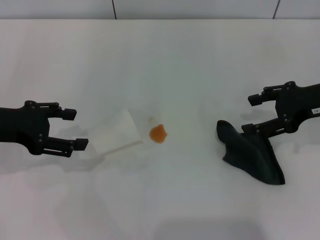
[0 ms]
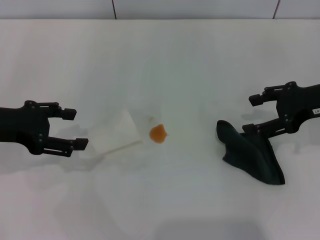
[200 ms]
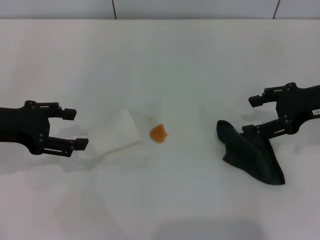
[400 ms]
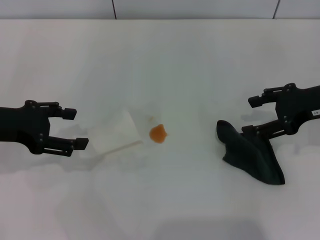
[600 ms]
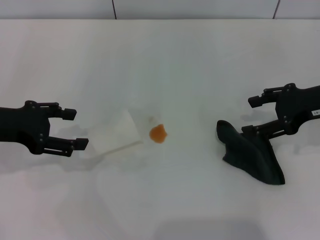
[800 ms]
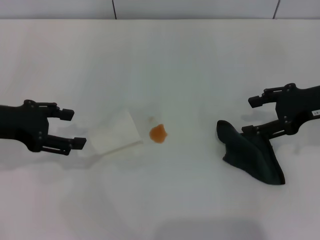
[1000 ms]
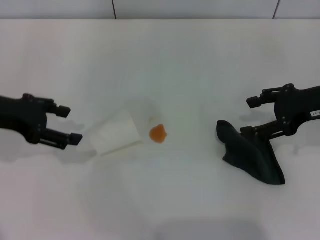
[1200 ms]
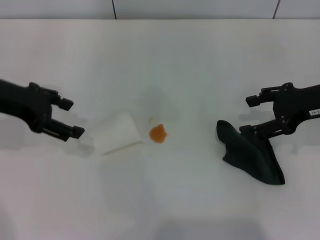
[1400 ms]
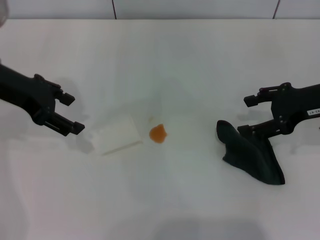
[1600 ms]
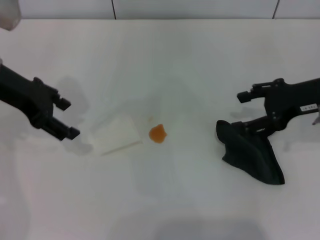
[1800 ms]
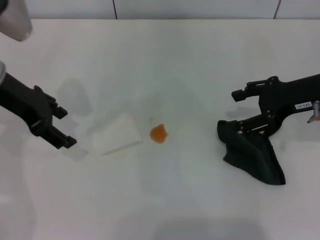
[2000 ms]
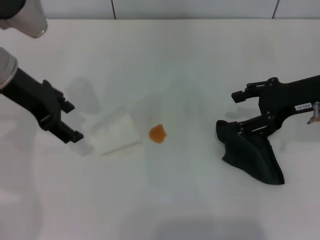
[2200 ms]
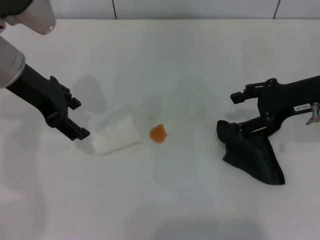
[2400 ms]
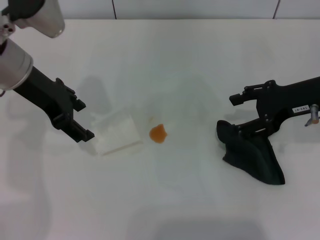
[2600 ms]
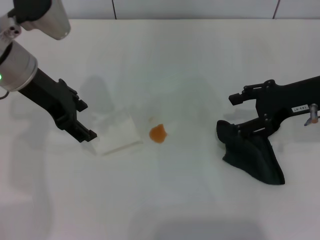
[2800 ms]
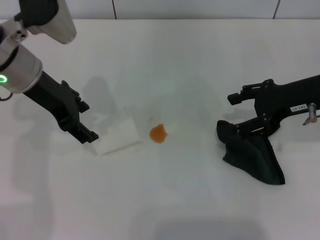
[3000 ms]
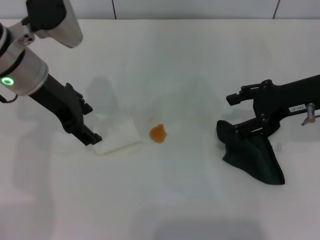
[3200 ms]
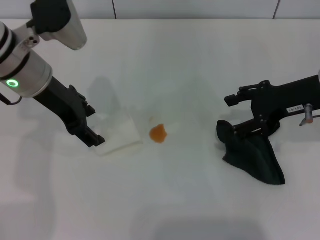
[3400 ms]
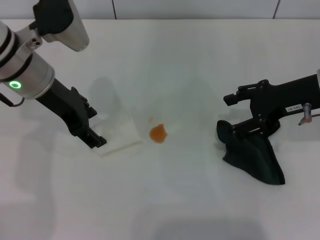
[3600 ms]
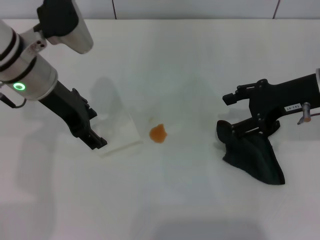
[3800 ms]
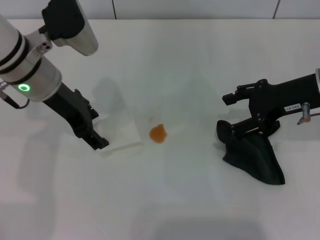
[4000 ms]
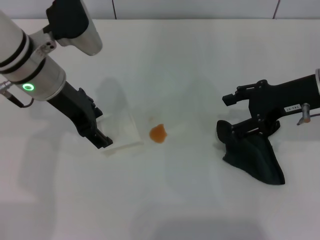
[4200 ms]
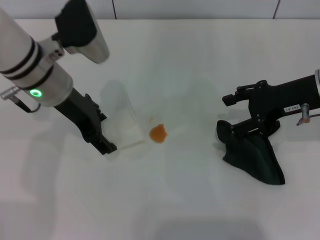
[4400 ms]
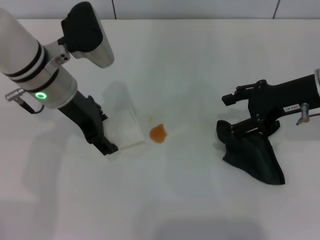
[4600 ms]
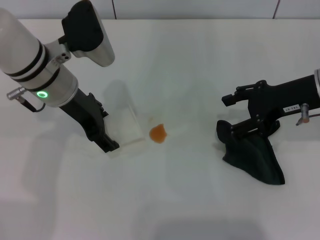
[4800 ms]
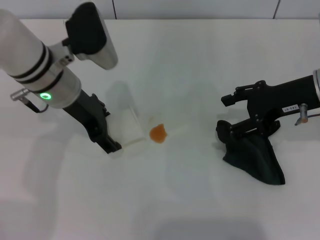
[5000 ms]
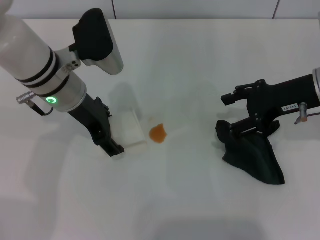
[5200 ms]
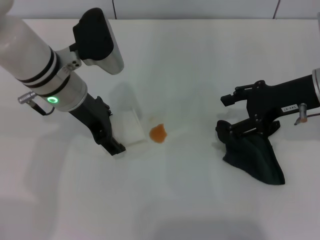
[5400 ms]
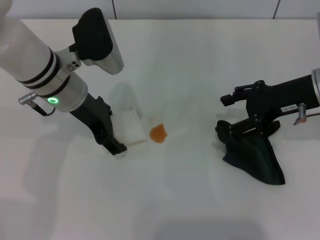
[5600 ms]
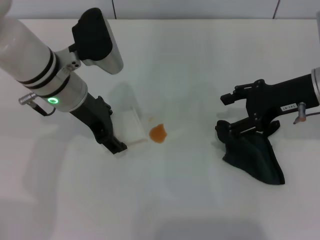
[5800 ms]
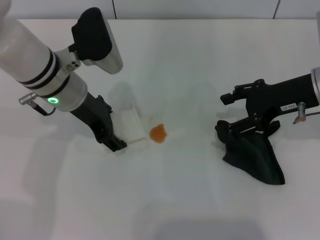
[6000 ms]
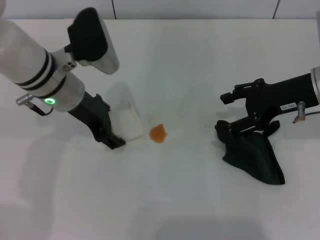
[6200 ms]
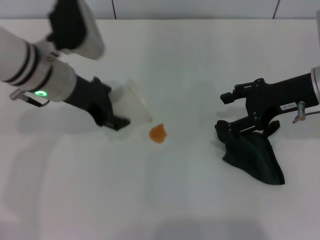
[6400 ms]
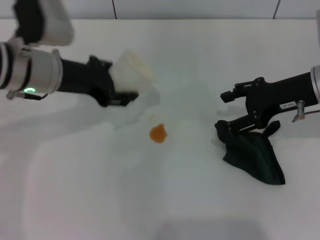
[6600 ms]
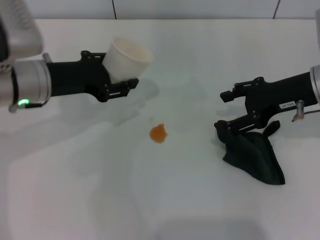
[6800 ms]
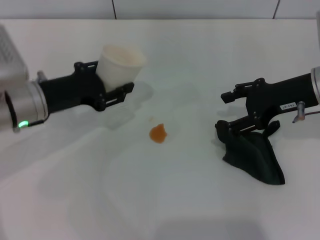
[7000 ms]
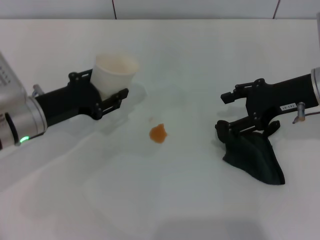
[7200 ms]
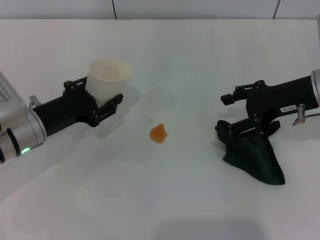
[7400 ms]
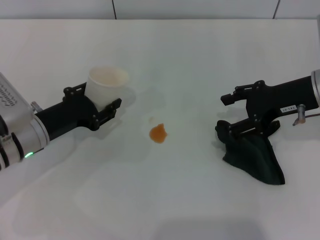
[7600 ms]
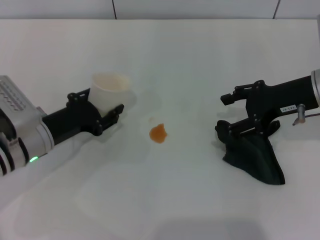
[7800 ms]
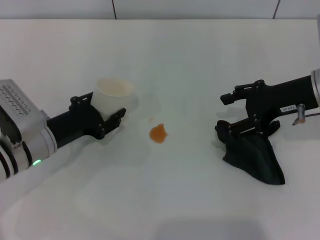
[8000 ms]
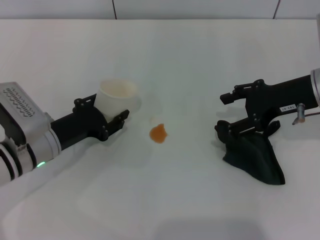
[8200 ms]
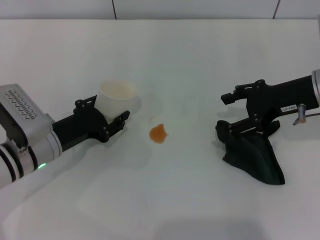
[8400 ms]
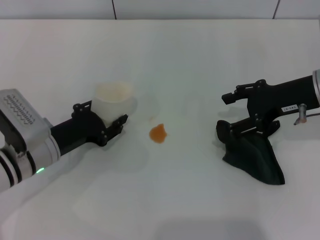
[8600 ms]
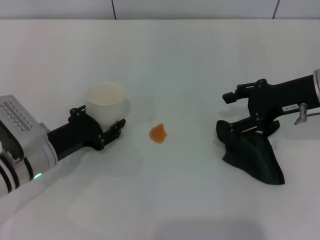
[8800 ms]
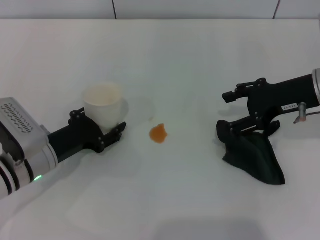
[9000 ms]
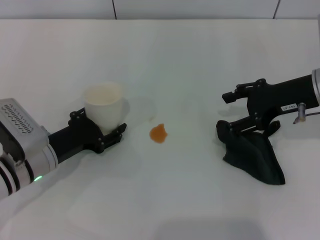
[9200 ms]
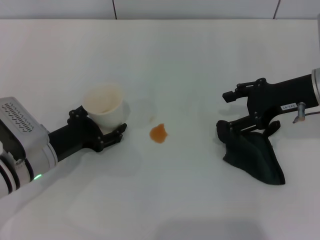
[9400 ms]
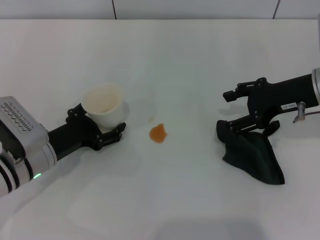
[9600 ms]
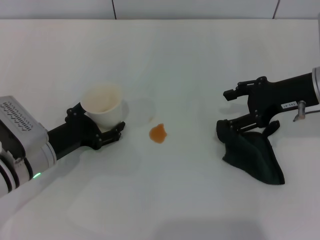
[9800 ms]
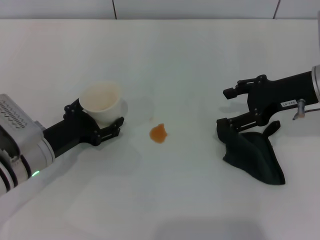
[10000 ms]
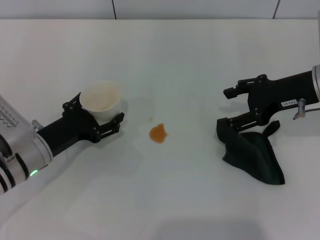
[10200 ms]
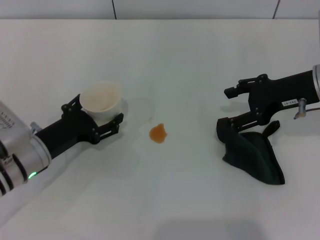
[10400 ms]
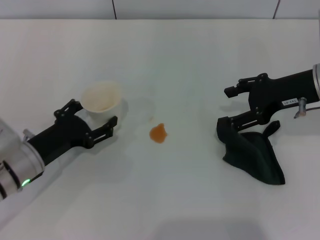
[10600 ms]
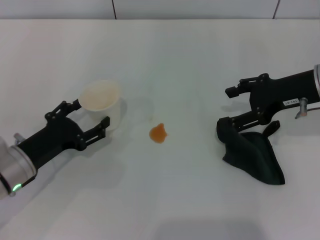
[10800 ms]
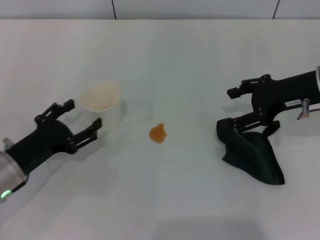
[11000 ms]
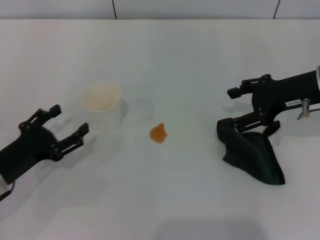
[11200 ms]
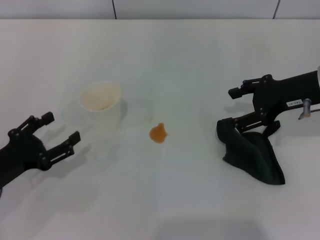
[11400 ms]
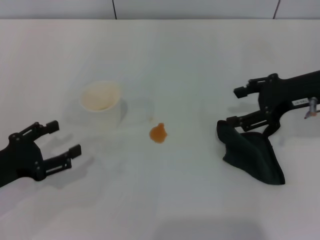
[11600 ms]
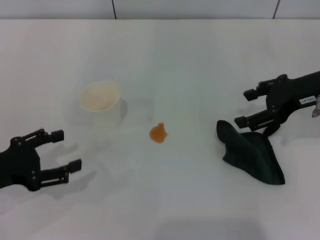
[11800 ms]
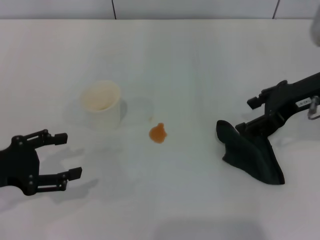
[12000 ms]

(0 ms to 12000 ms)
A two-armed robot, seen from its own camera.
Step, 0 ms - 5800 ms: Grasp the paper cup with the left gripper.
Step, 6000 ms - 10800 ms: Stand the paper cup upright with the left gripper.
0 ms - 1600 ms: The left gripper travels forward by about 5 cm.
1600 ms - 3000 ms: The left gripper heads to the right, covering some 5 cm.
3000 ms - 4400 ms: The grippers make only small movements.
4400 ms - 6000 ms: The grippers move only a little.
6000 ms - 7600 ms: The left gripper shifts roughly 15 cm downward, to the left and backward, and closes.
7600 ms - 9000 ms: The grippers move only a little.
9000 ms - 10400 ms: The left gripper opens its fingers.
10400 ms - 12000 ms: The left gripper is displaced to the left and upward by about 10 cm.

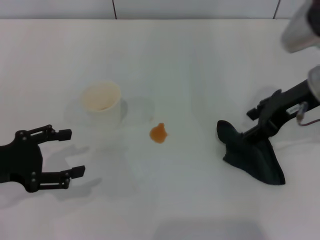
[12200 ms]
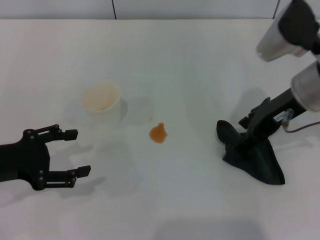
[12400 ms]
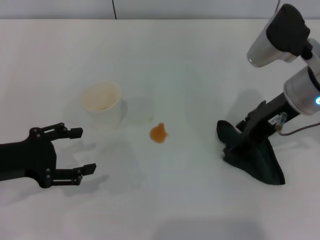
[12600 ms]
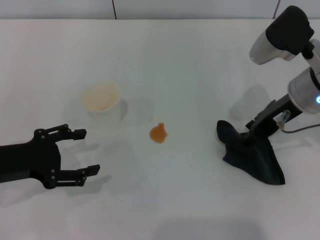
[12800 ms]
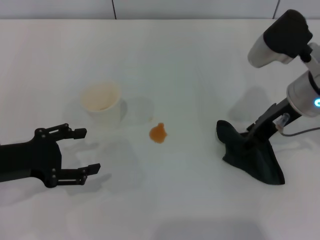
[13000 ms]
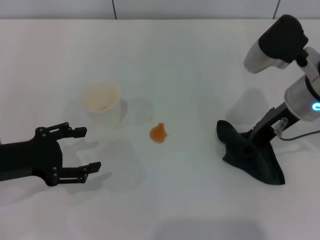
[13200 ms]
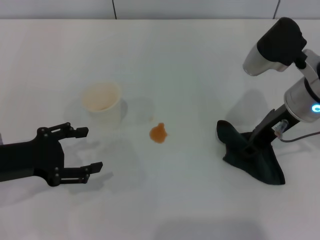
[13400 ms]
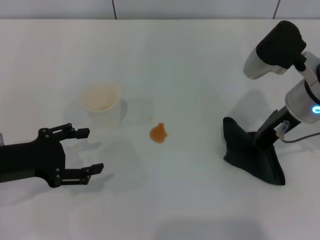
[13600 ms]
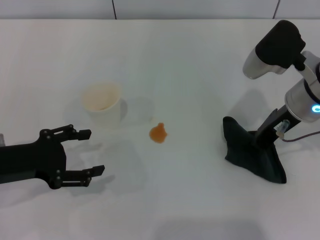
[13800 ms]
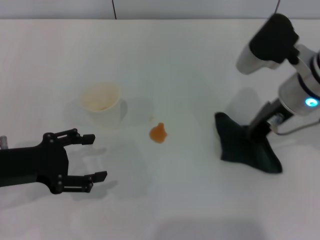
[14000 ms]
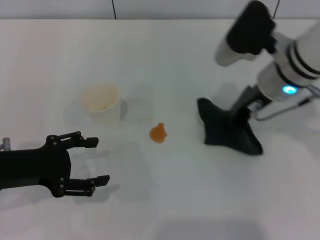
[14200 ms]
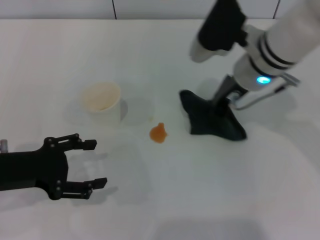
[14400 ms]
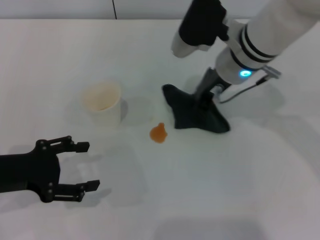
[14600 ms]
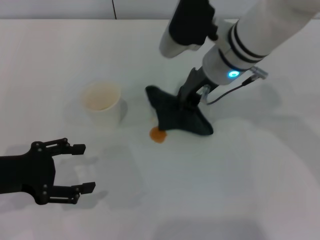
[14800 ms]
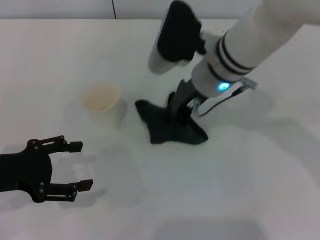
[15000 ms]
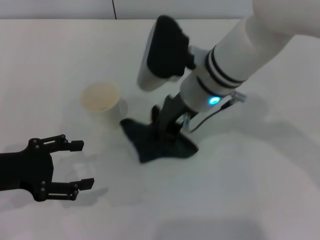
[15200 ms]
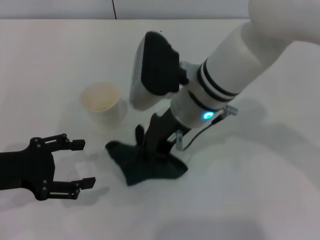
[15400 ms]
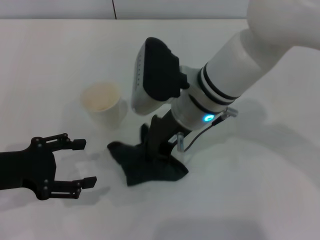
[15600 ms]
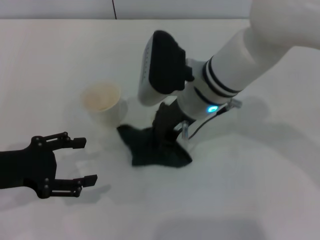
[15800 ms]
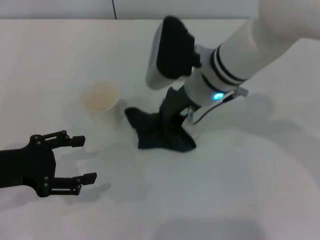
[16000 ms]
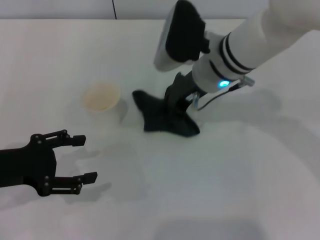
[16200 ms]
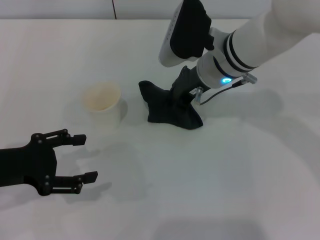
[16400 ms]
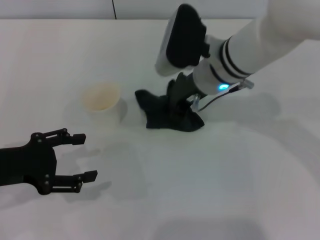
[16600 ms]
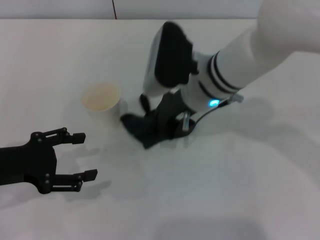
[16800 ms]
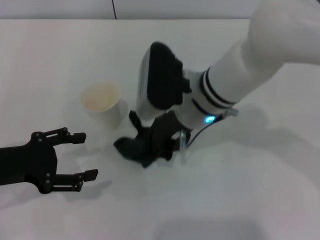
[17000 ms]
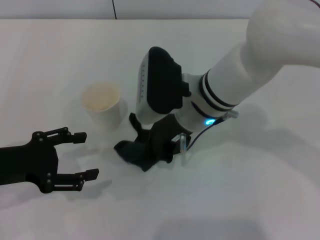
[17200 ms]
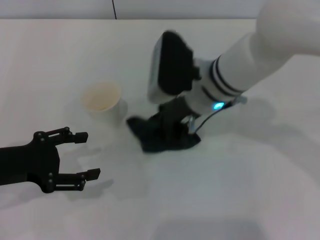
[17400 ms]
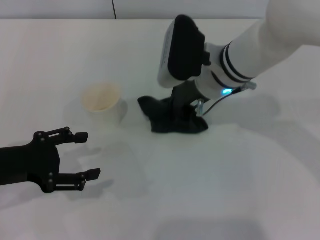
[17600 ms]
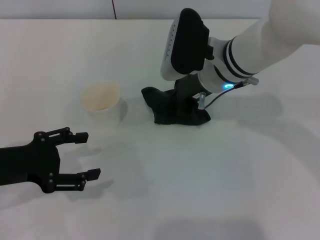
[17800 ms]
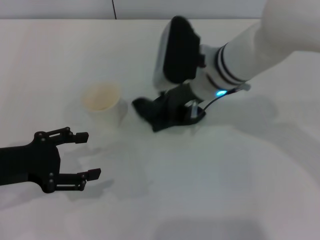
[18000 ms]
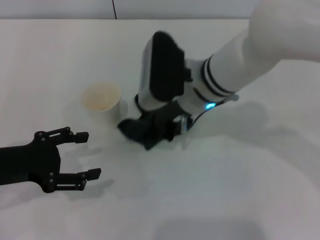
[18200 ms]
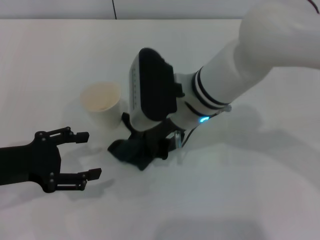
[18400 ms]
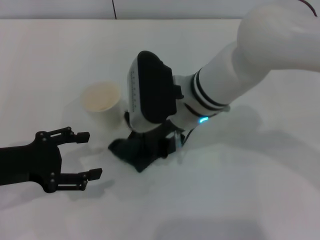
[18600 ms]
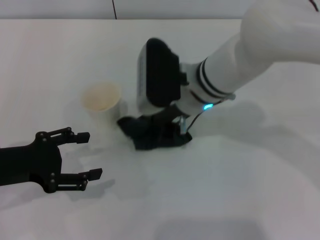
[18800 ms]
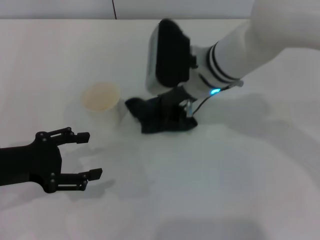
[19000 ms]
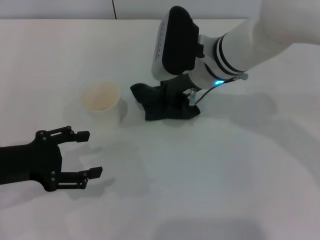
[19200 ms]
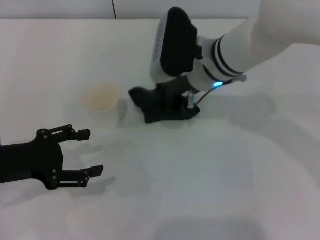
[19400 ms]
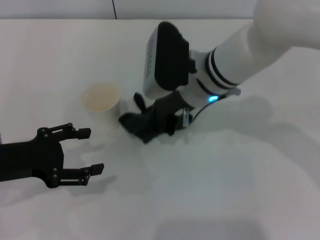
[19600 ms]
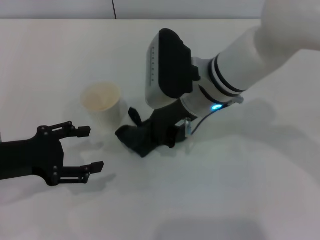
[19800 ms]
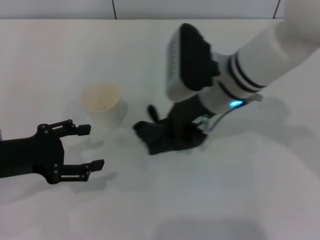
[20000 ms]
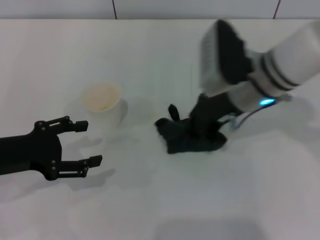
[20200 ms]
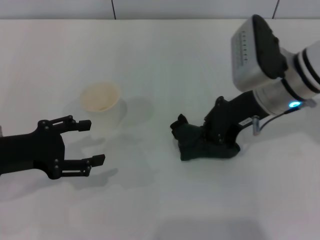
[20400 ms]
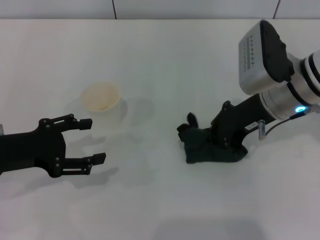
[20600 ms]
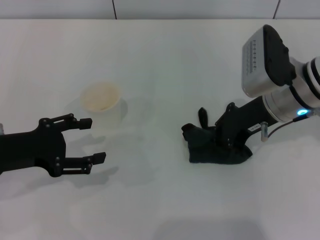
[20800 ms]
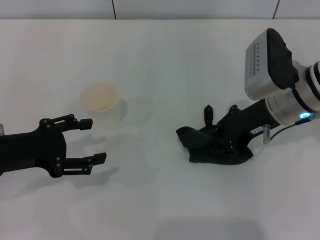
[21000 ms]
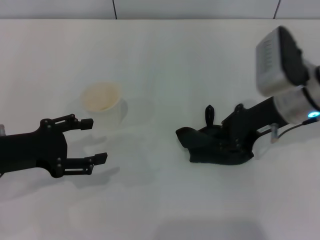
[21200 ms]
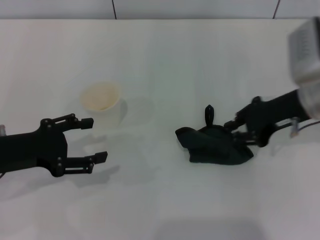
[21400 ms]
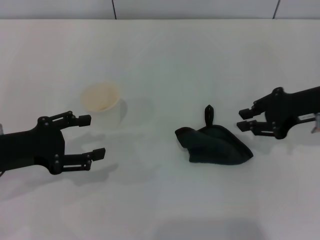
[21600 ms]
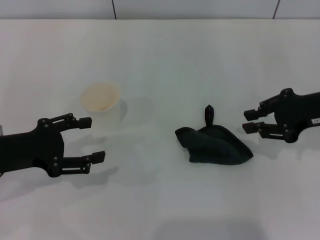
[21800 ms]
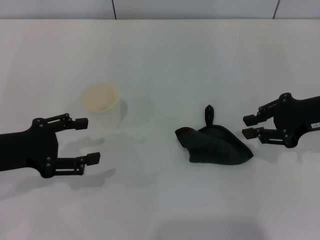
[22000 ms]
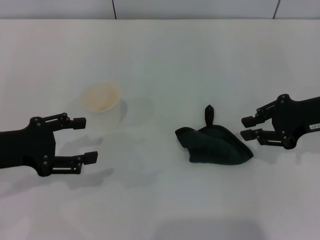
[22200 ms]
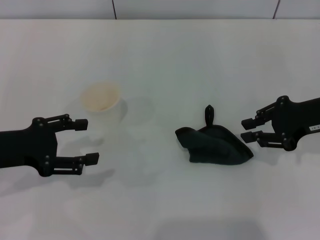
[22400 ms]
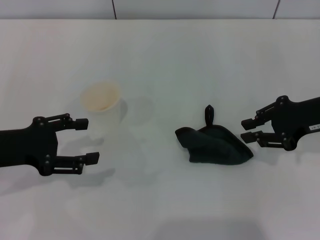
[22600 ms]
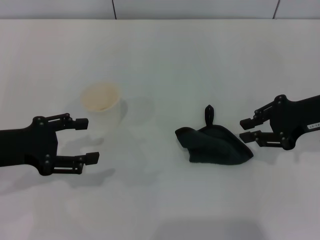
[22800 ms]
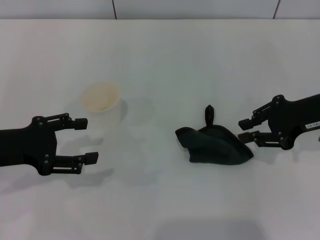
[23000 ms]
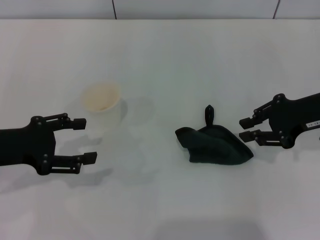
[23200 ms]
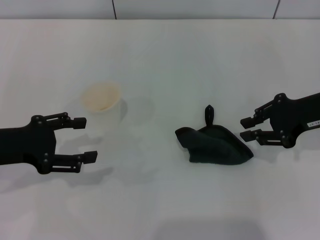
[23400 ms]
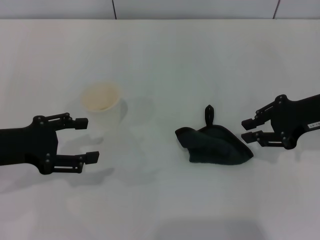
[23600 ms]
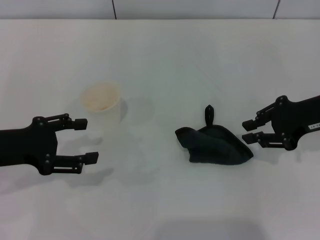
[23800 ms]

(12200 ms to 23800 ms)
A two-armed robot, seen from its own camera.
Step, 12200 ms - 13800 ms: Grasp the rag with the right gripper.
Step, 14000 ms - 20400 ms: Wipe the stains off the table with the right gripper.
Step, 20600 ms - 21600 ms: Place the rag on the table with the right gripper.
12200 ms - 13600 ms: The right gripper closes.
13600 ms - 15000 ms: The right gripper goes roughly 10 cm to the left, and closes.
15000 ms - 19400 ms: The grippers move only a little.
19400 ms - 21000 ms: The right gripper heads to the right, covering approximately 10 cm.
21000 ms - 22400 ms: The right gripper shifts some 10 cm to the right.
22400 ms - 23800 ms: Both grippers stay put.
